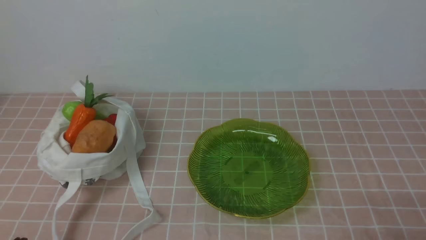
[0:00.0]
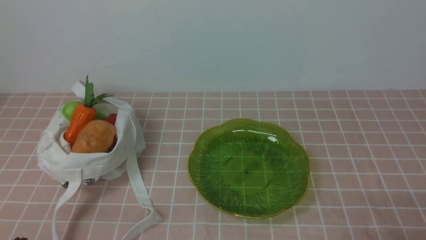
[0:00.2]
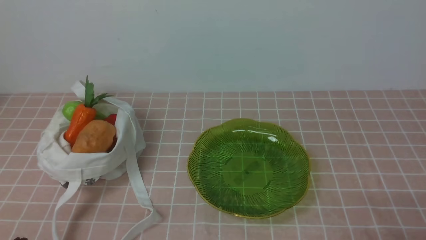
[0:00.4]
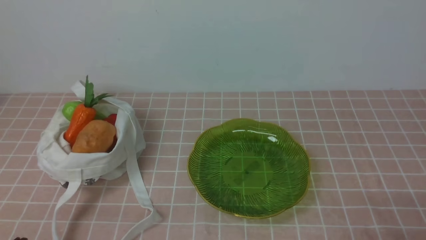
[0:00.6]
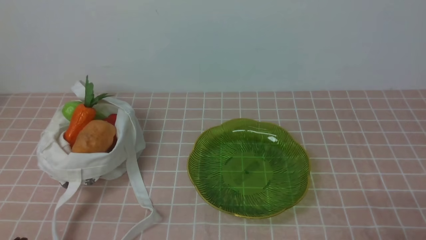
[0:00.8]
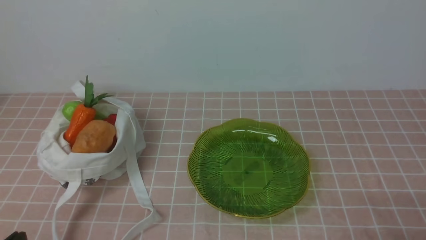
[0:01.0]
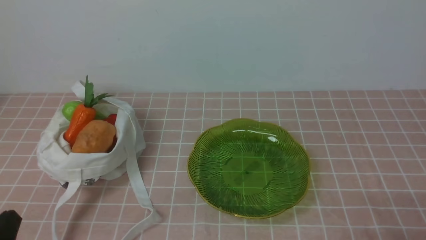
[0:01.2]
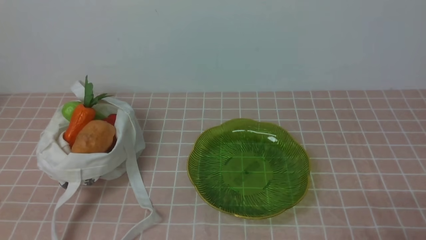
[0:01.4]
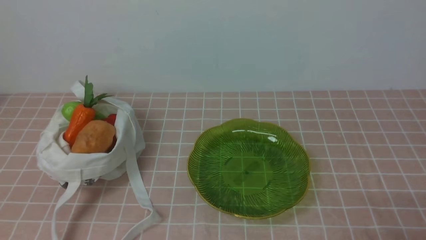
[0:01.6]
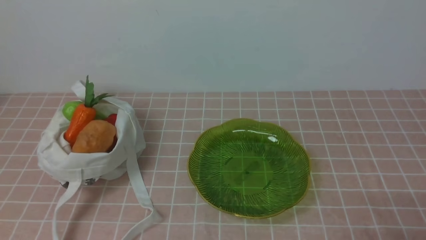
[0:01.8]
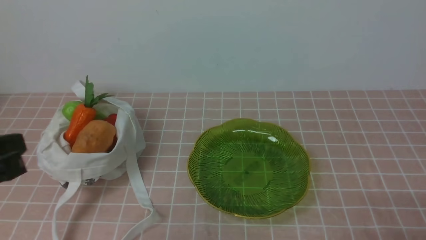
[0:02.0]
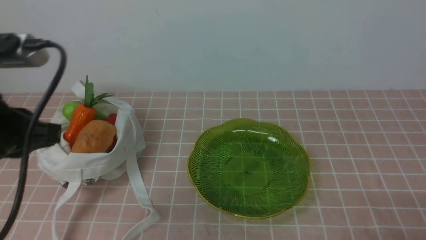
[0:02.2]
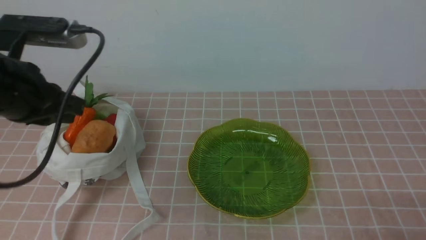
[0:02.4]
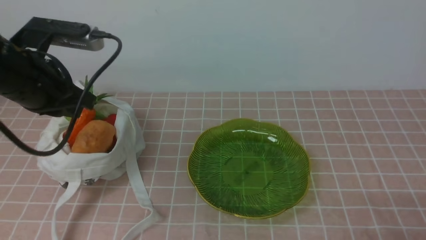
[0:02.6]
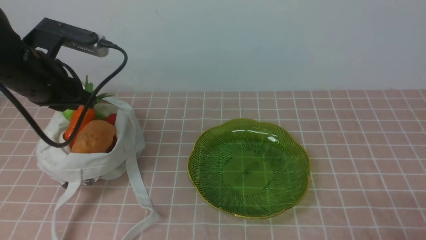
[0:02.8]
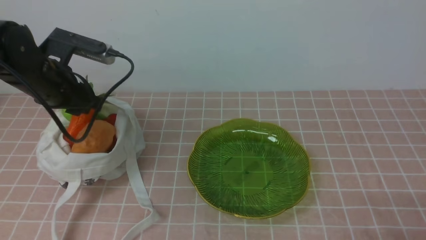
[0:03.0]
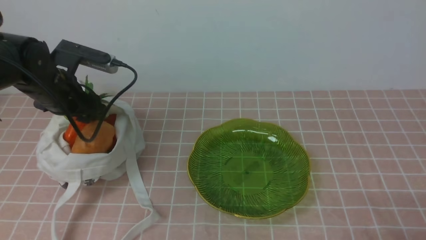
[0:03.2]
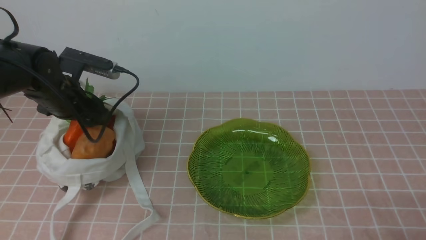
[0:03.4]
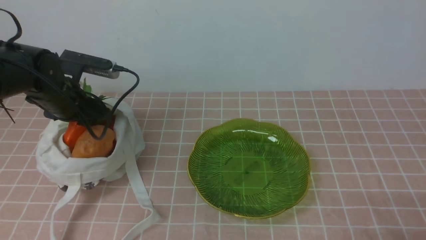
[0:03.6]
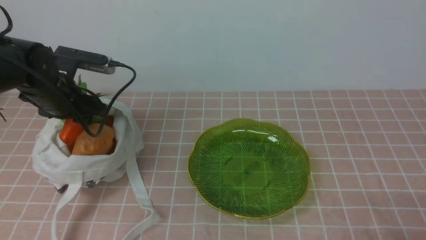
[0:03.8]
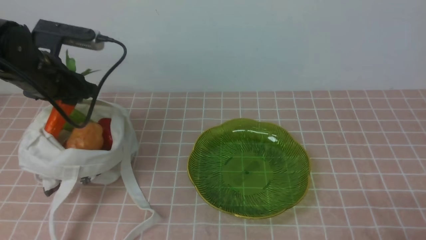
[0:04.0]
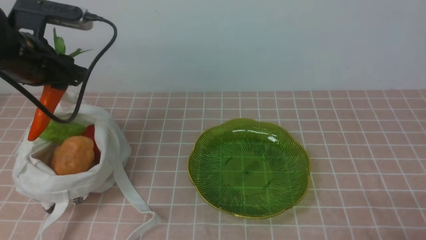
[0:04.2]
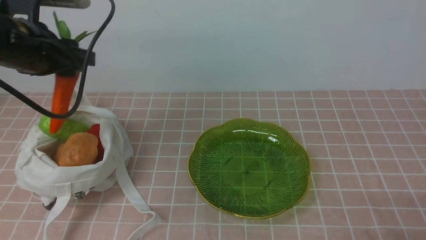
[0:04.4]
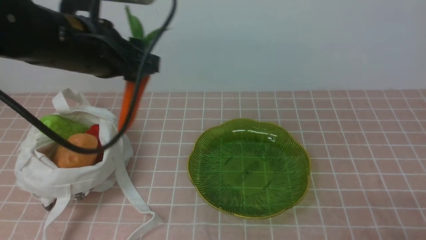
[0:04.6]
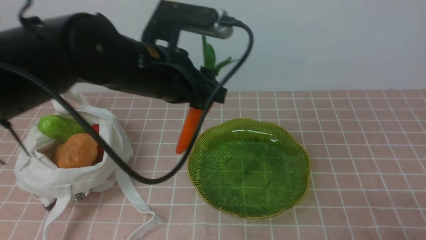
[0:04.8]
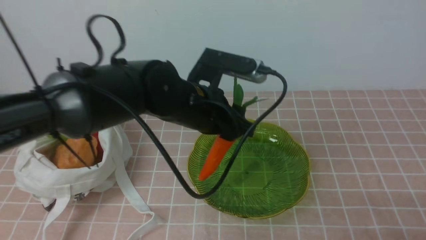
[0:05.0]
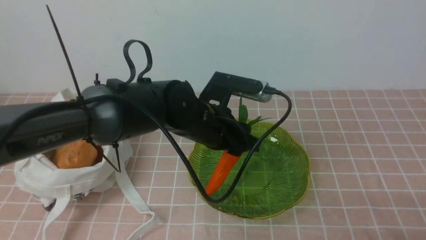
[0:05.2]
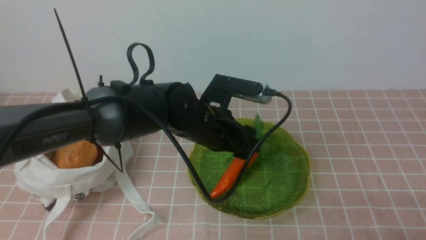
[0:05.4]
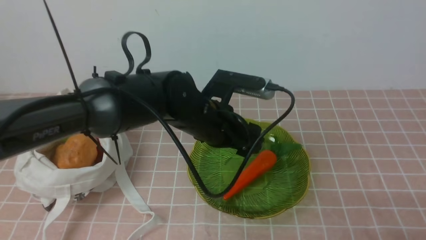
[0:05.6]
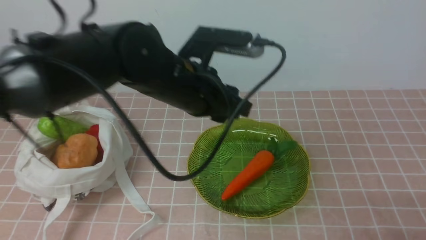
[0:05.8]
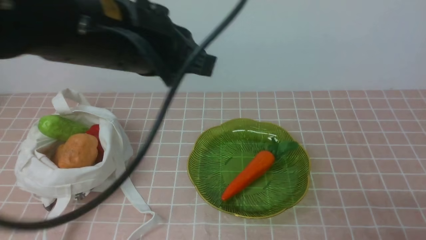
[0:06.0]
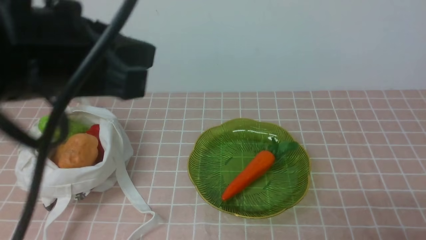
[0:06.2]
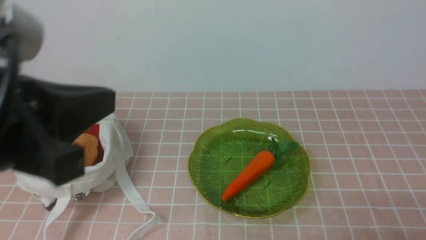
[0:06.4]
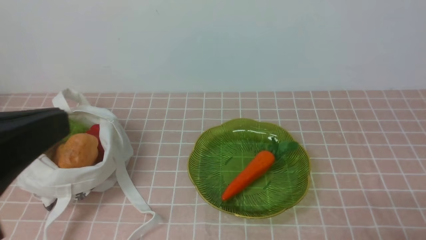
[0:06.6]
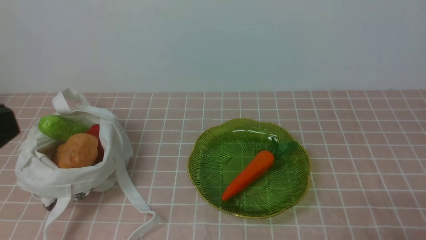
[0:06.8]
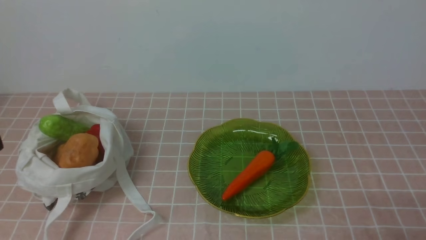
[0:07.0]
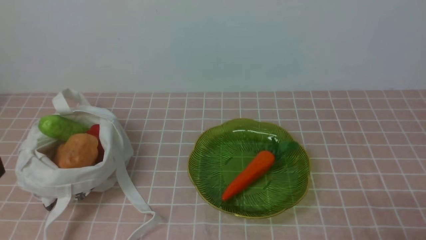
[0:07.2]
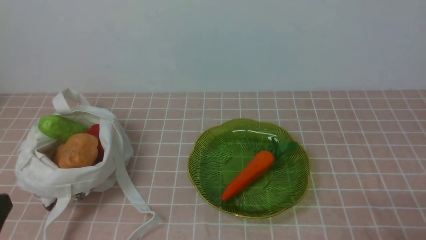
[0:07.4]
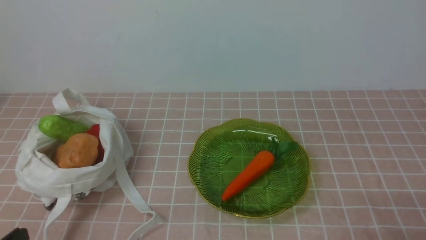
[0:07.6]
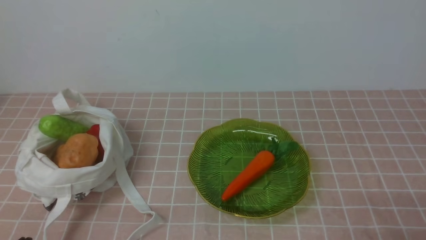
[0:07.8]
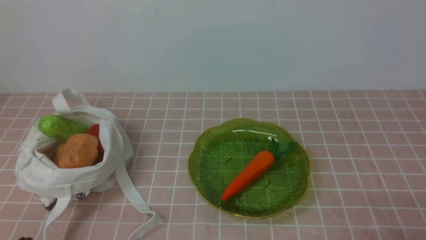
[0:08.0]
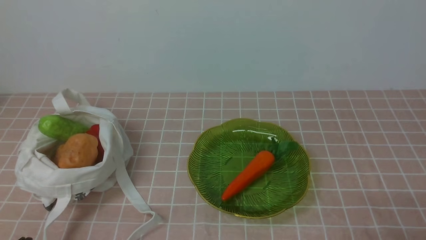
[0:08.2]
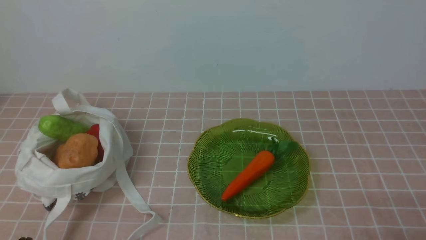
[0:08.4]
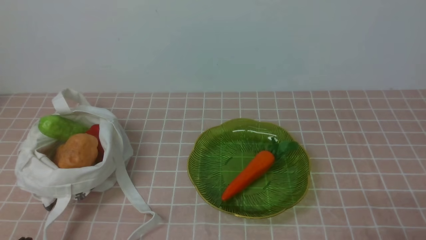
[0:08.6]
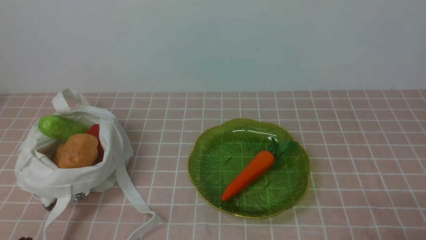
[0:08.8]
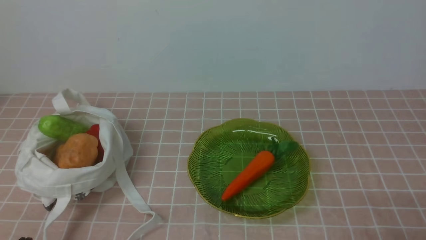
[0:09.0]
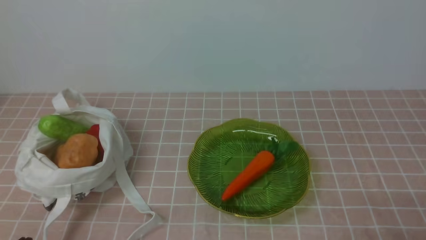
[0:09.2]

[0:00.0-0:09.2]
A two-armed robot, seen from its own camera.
Task of the whole recording: take vegetables from bag on pink coffee tablecloth place on plate.
Step, 0:00.0 to 0:03.6: Grasp the carrot with left gripper.
Step, 0:03.8 to 0:05.8: Place the carrot on the plate with left gripper.
0:01.6 to 0:03.0: The left gripper moves forward, roughly 30 cm, and opens.
0:03.0 to 0:04.6: The left gripper heads to the right and upward, covering roughly 10 cm.
0:04.6 to 0:06.2: The left gripper heads backward and to the right, covering roughly 15 cm, goes downward and returns, about 10 cm each way, and closes its fingers.
0:06.2 to 0:07.6: The left gripper goes roughly 30 cm downward, backward and to the left.
